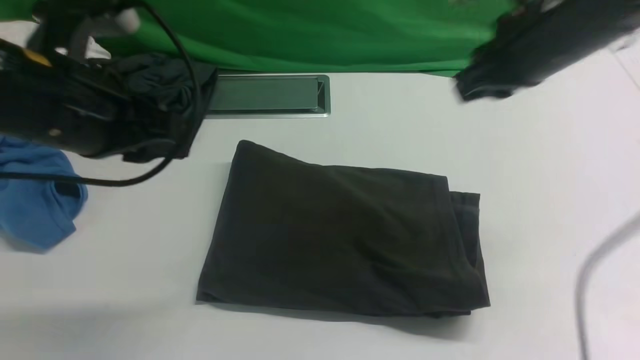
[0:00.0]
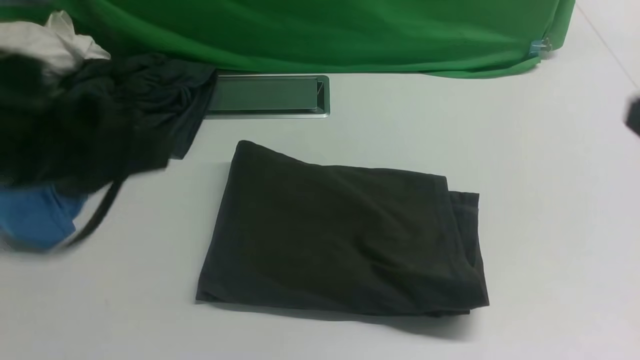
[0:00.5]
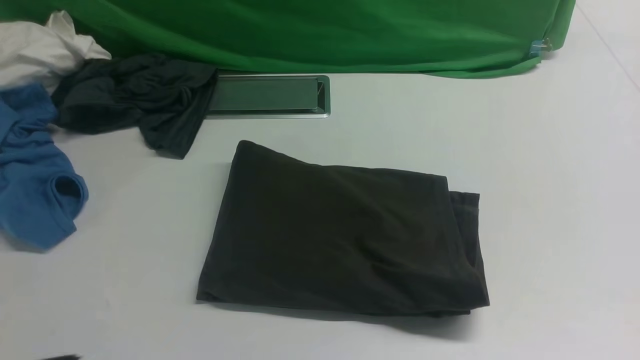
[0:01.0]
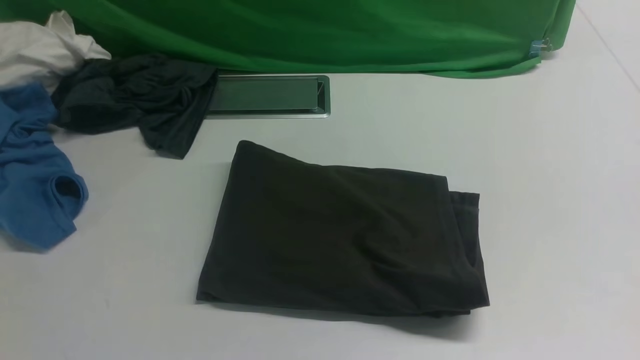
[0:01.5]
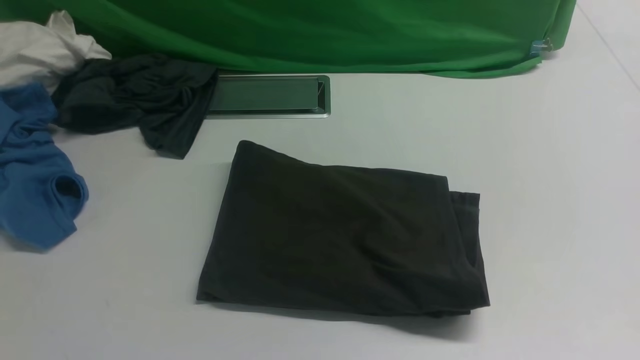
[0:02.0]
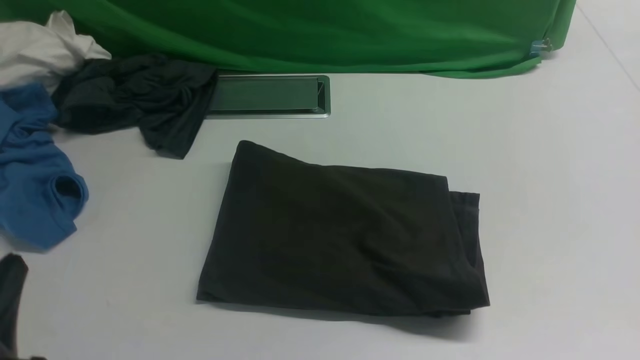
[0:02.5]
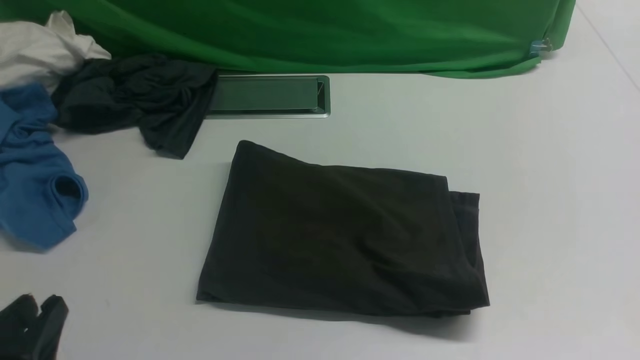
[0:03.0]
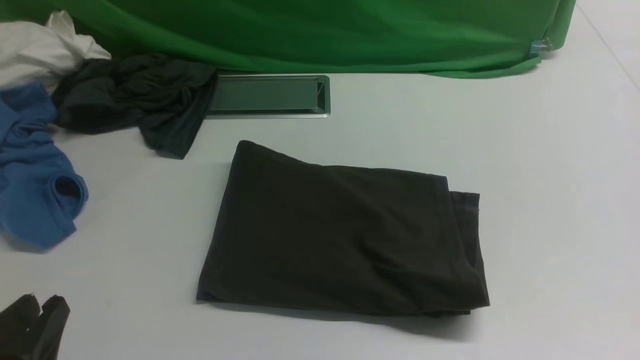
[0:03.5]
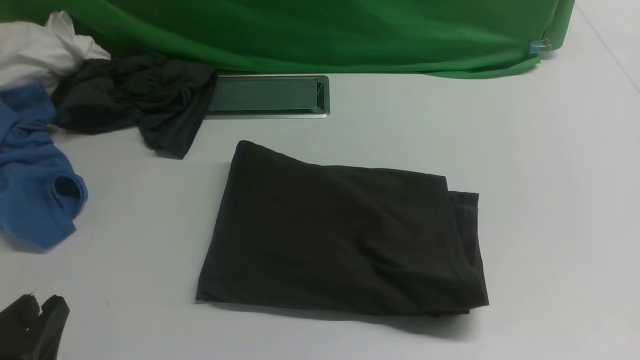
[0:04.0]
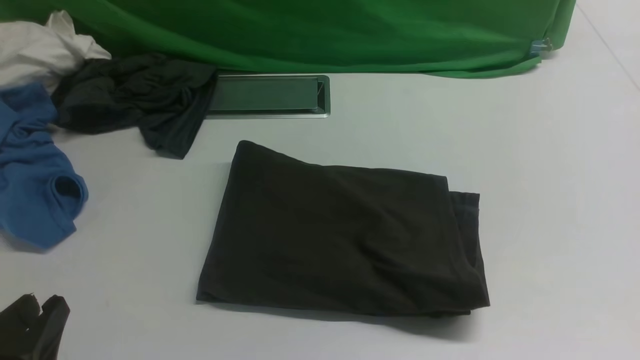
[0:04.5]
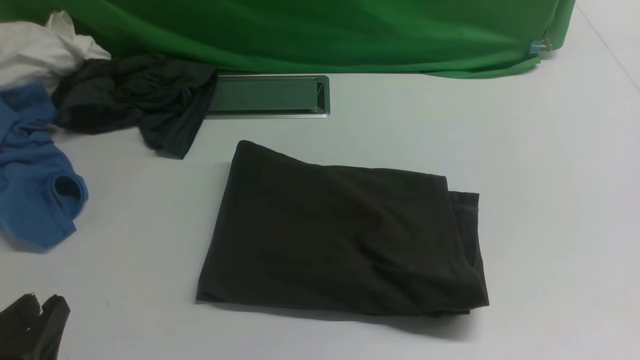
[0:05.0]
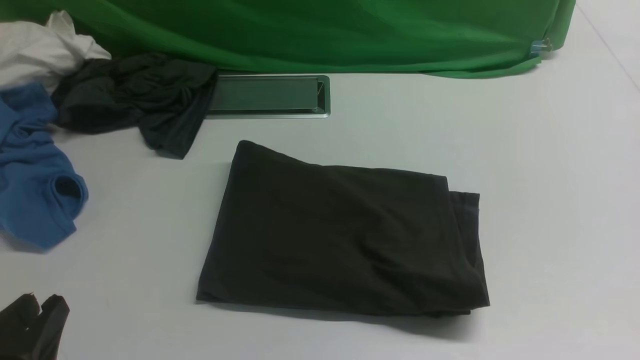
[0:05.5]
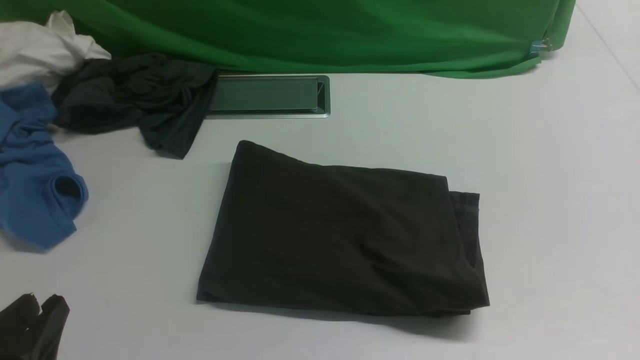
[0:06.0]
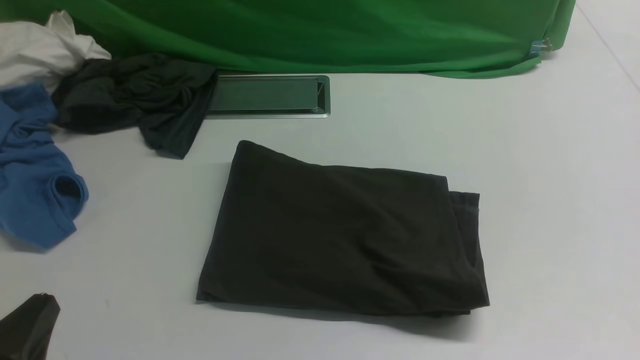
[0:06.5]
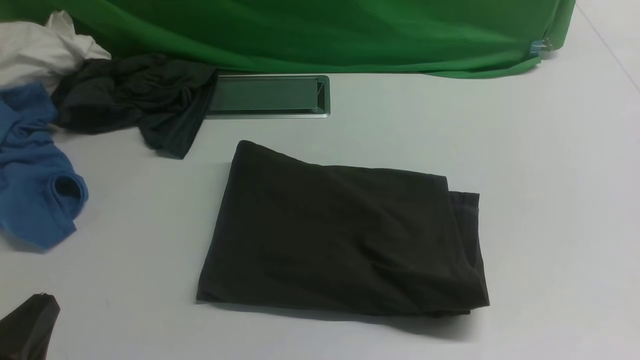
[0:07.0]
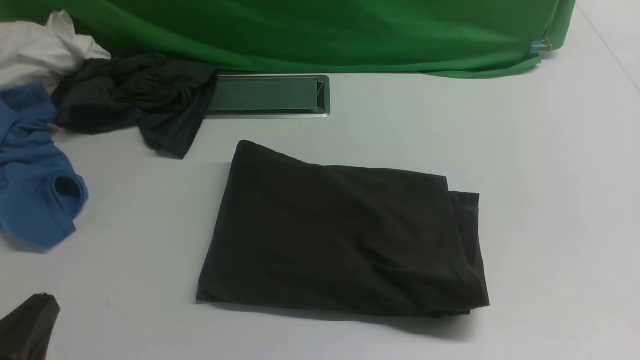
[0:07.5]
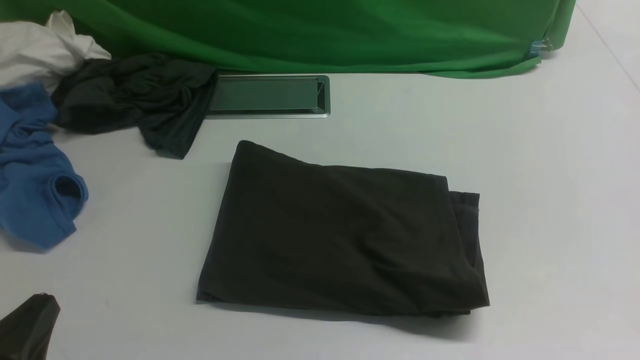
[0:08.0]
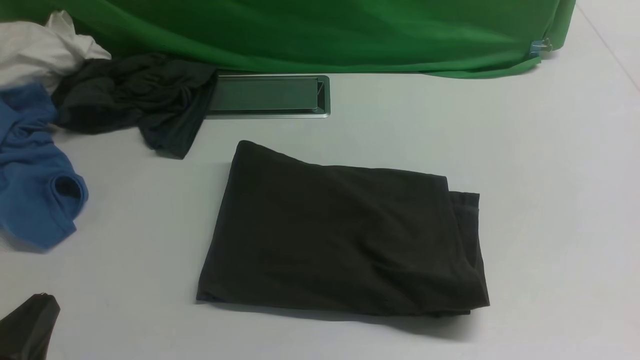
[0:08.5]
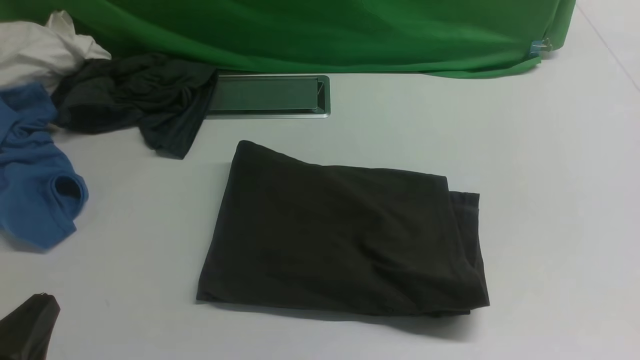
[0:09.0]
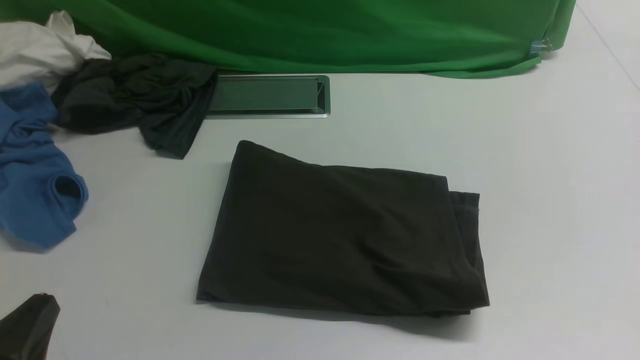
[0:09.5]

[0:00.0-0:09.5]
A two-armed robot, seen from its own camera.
0:00.0 to 0:02.0: Both grippers move backward, some 25 cm.
0:02.0 to 0:04.0: The left gripper shifts some 15 cm downward.
0:07.5 to 0:09.5: Both grippers stay about where they are.

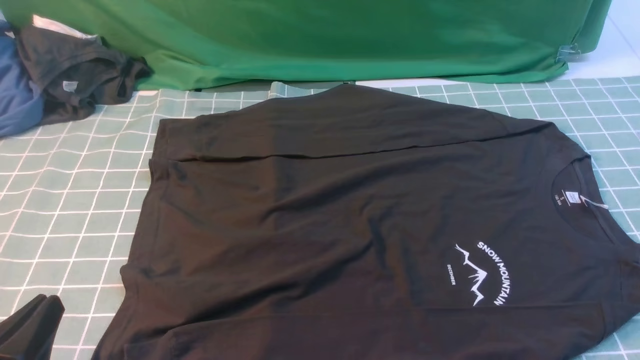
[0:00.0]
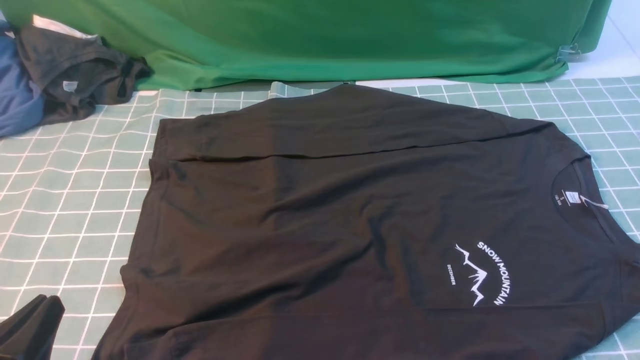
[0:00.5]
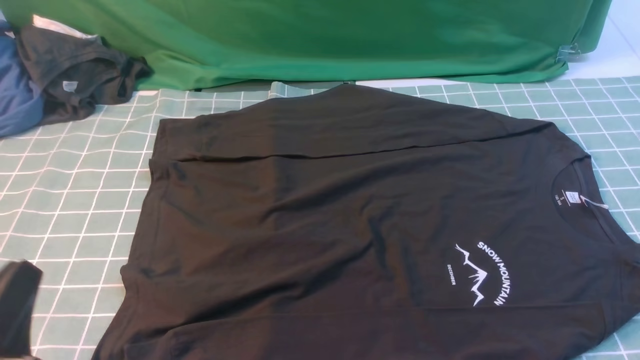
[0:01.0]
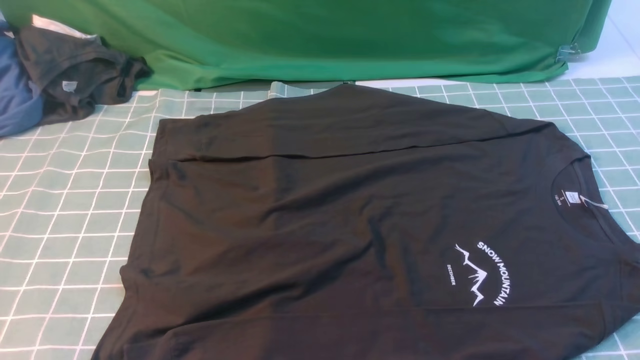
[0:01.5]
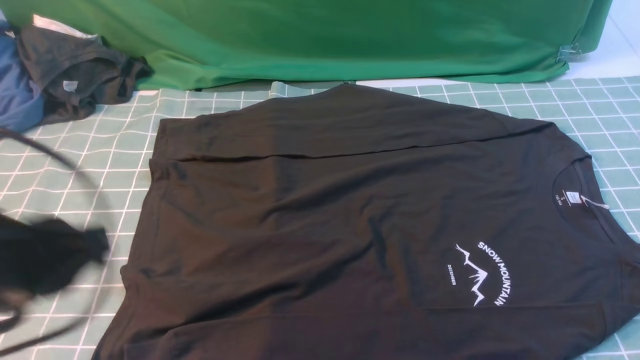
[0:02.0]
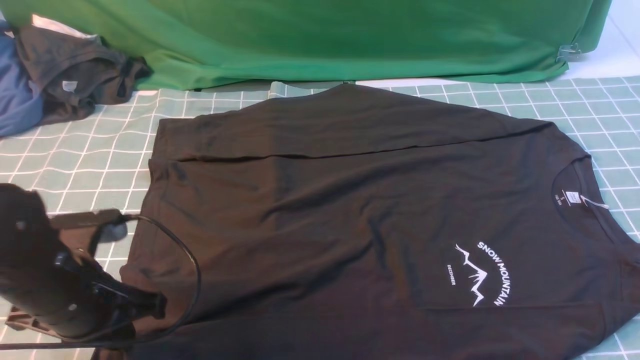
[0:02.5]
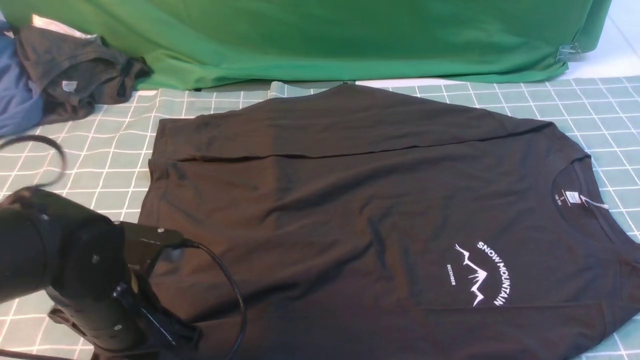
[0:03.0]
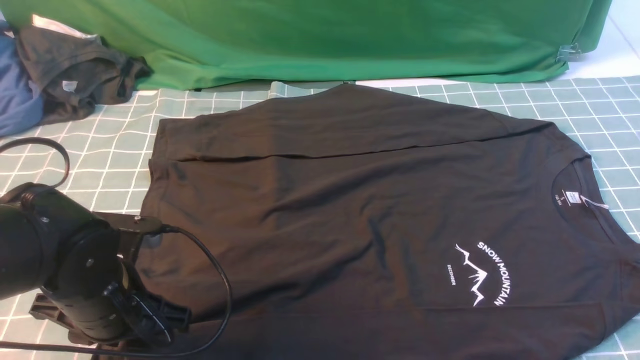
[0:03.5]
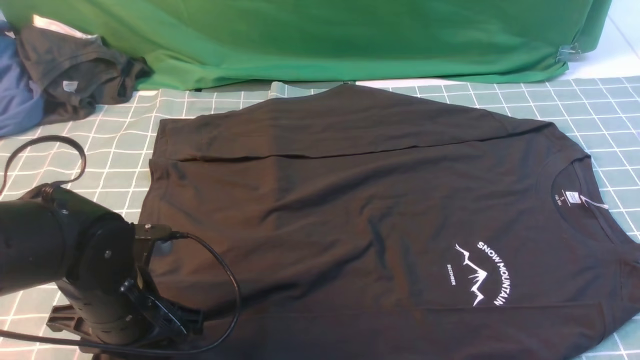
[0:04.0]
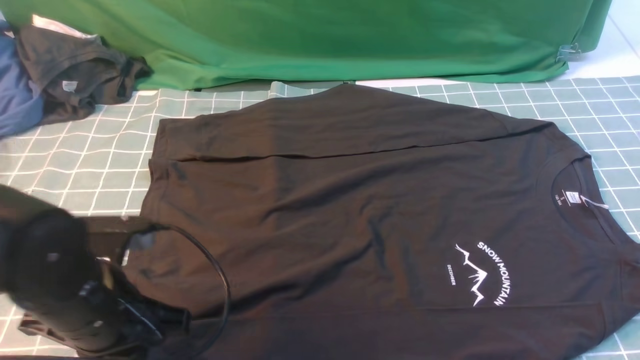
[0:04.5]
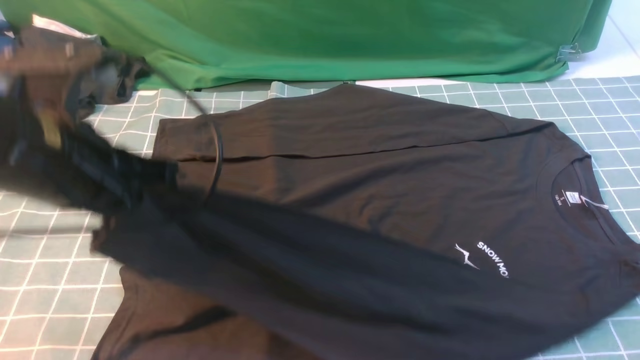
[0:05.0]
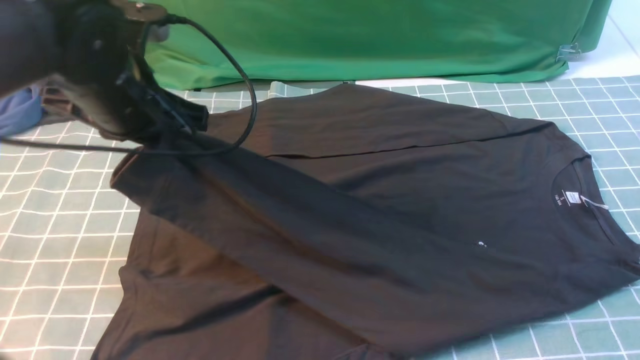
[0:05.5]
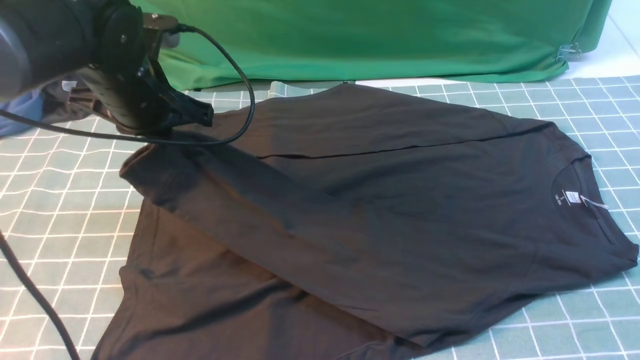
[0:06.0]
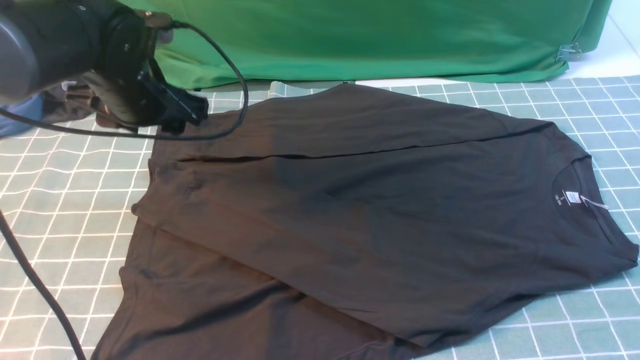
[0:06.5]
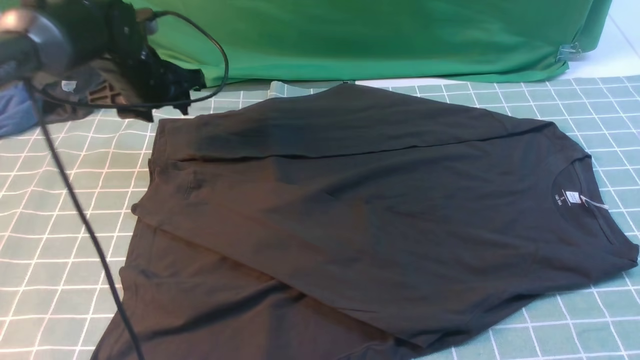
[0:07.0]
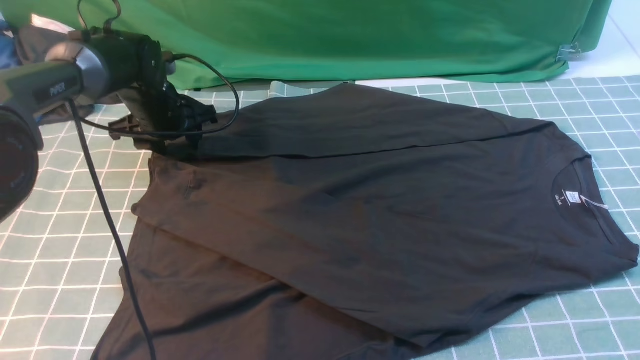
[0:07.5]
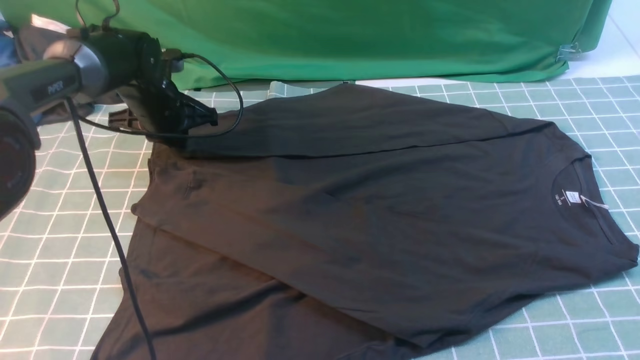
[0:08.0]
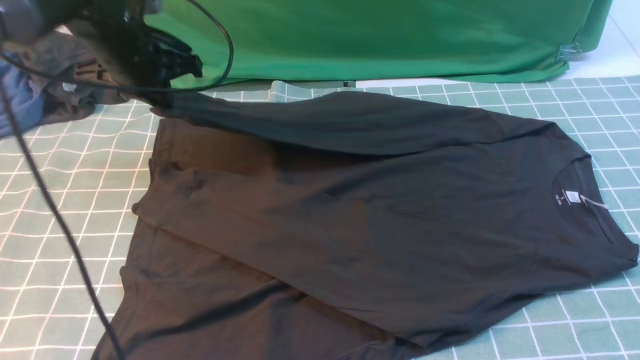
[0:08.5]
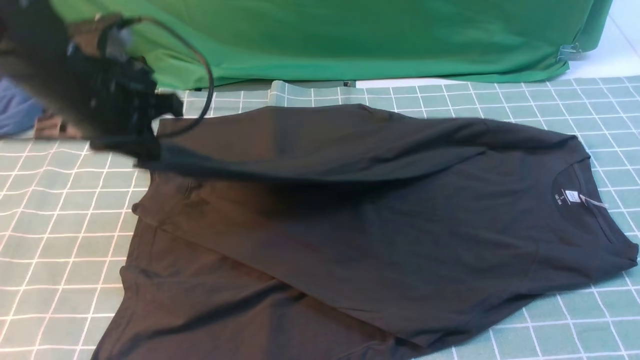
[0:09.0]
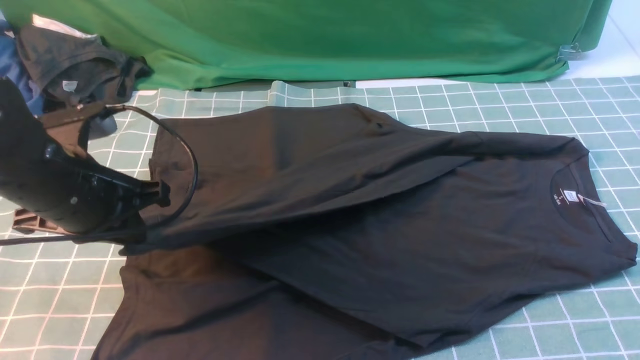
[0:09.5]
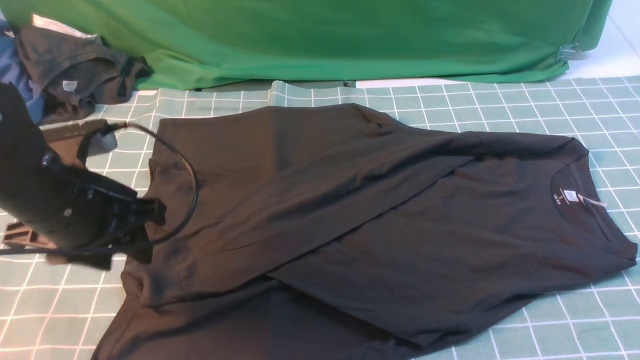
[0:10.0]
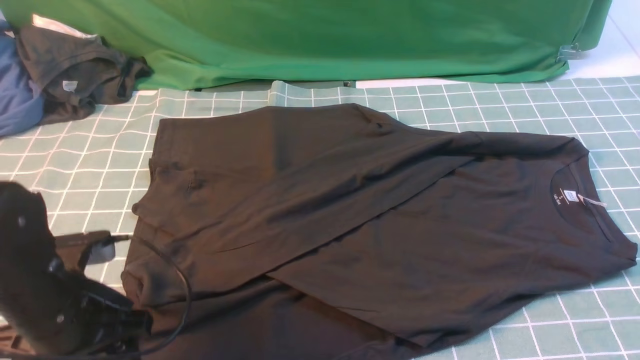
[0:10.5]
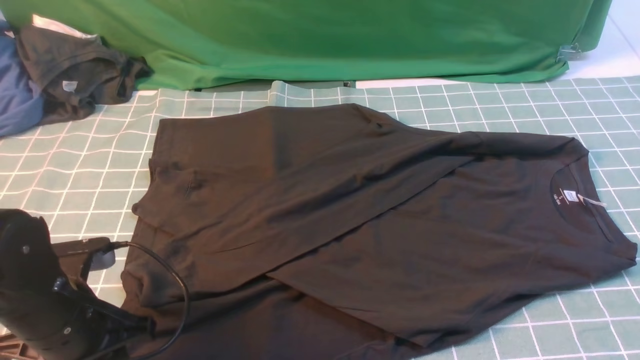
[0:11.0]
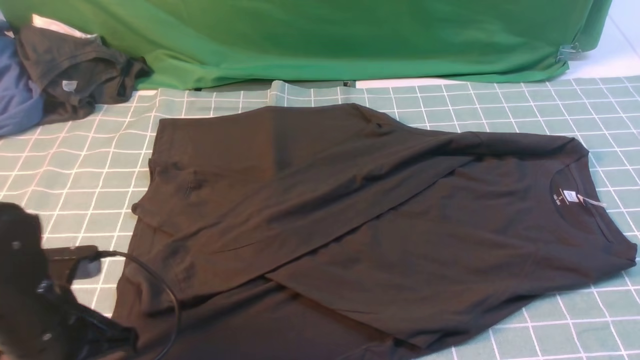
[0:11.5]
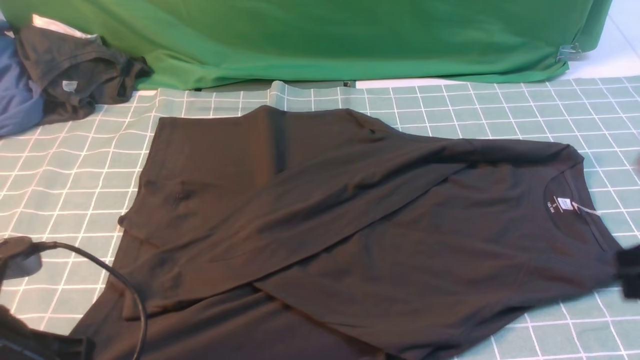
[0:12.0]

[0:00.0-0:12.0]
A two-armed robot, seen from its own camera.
Step, 0:00.0 to 0:04.0: use the left arm to clamp the cuff closest to it.
Step, 0:04.5 to 0:06.0: use the left arm to drag and place the cuff at the centered position on the left edge of the fabric.
Step, 0:06.5 to 0:08.0: use the left arm to clamp the cuff farthest from it.
Step, 0:08.5 to 0:09.5: use the left arm to drag and drop the cuff onto the cuff closest to the left arm.
0:00.0 to 0:02.0: The left gripper goes about 15 cm upward and forward.
0:02.0 to 0:04.0: The left gripper travels downward and forward by roughly 15 cm, and opens its fingers. Meanwhile the right gripper shifts roughly 5 cm upward.
0:04.0 to 0:06.0: The left gripper goes roughly 20 cm forward and upward, and closes.
0:06.0 to 0:08.0: The left gripper shifts approximately 15 cm forward and downward, and opens and closes again.
0:08.0 to 0:10.0: The right gripper goes roughly 5 cm forward; the left gripper goes some 25 cm backward, and opens up.
0:10.0 to 0:12.0: The right gripper moves about 5 cm, while the left gripper moves backward, roughly 10 cm, and closes up.
